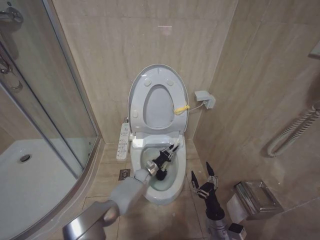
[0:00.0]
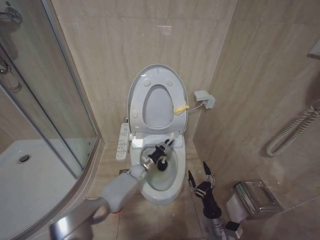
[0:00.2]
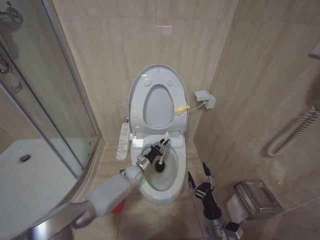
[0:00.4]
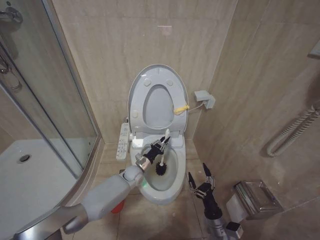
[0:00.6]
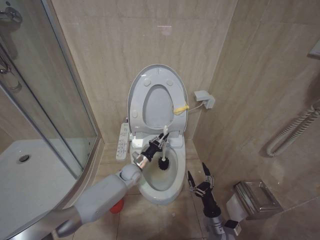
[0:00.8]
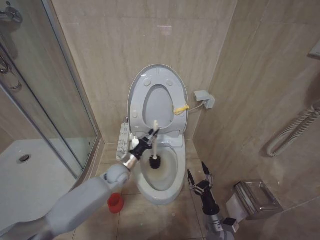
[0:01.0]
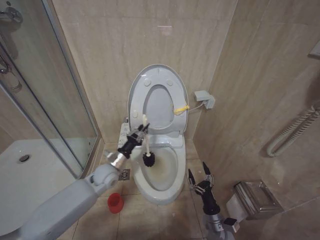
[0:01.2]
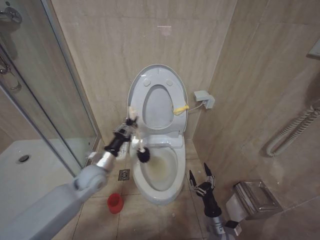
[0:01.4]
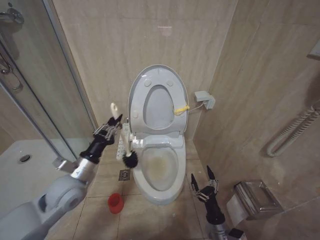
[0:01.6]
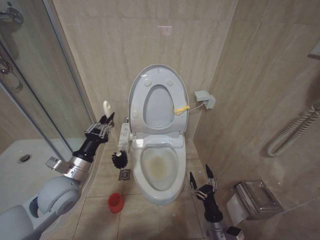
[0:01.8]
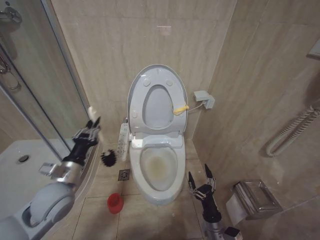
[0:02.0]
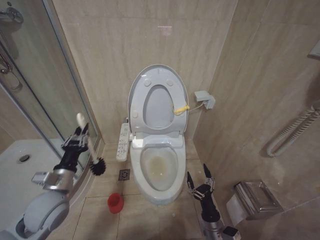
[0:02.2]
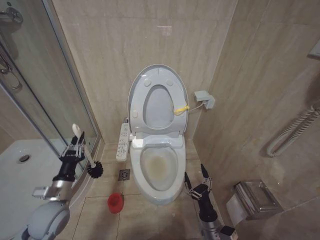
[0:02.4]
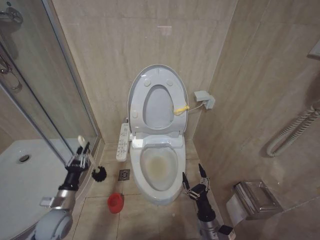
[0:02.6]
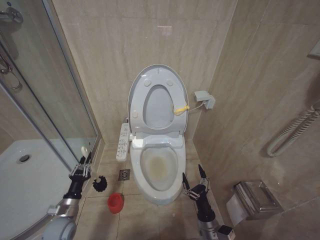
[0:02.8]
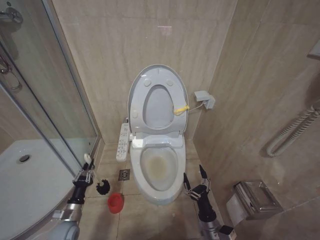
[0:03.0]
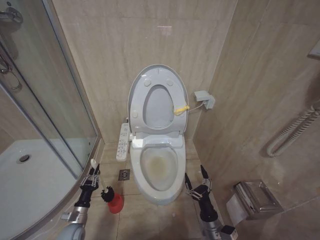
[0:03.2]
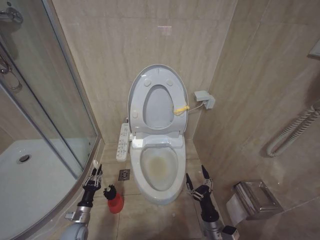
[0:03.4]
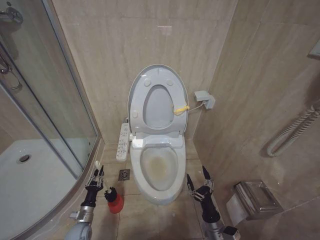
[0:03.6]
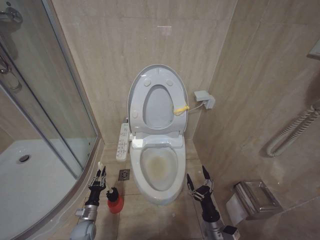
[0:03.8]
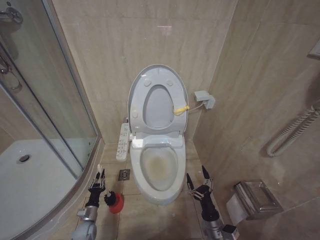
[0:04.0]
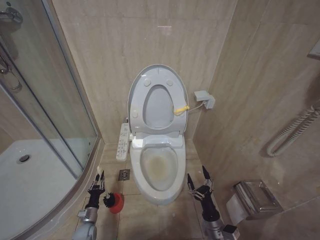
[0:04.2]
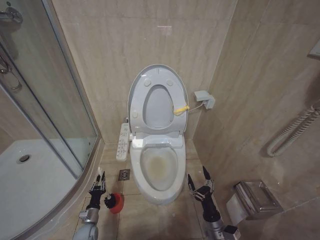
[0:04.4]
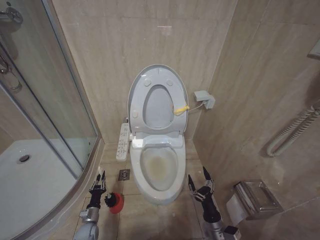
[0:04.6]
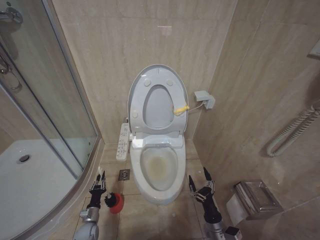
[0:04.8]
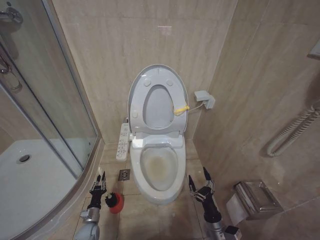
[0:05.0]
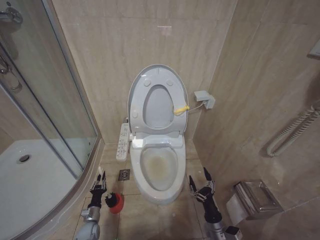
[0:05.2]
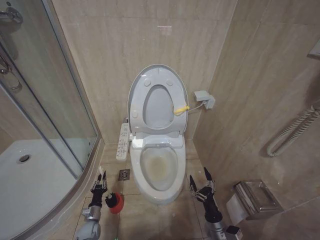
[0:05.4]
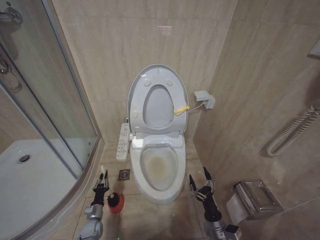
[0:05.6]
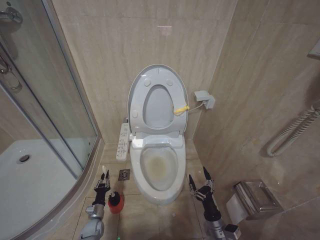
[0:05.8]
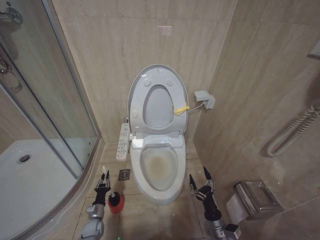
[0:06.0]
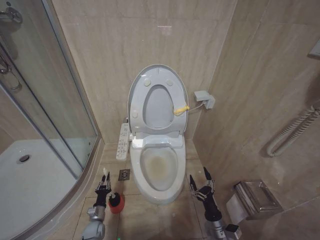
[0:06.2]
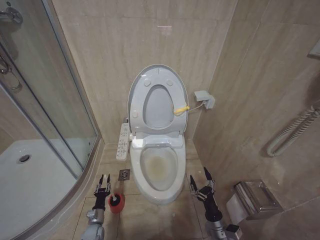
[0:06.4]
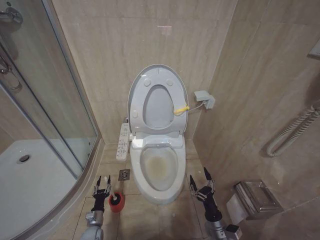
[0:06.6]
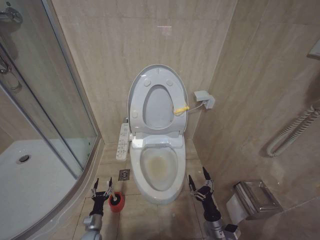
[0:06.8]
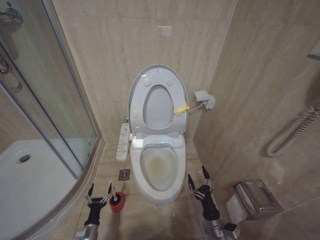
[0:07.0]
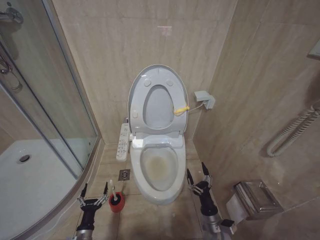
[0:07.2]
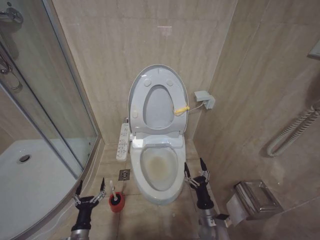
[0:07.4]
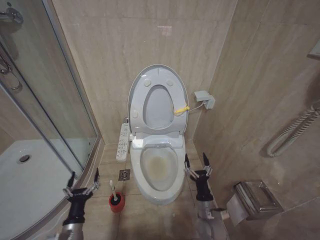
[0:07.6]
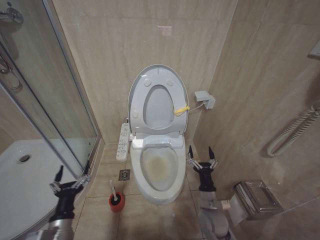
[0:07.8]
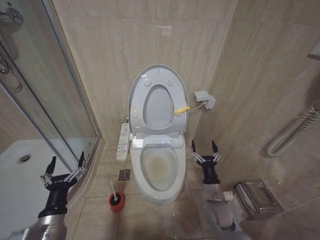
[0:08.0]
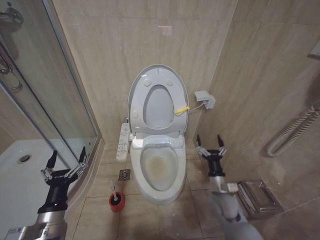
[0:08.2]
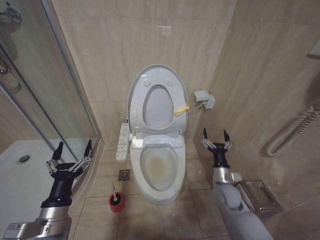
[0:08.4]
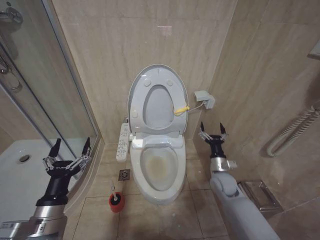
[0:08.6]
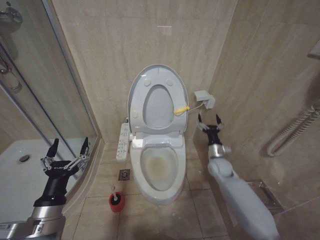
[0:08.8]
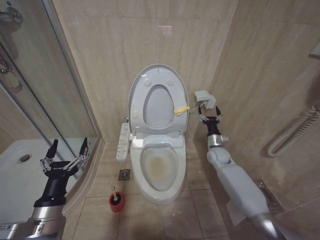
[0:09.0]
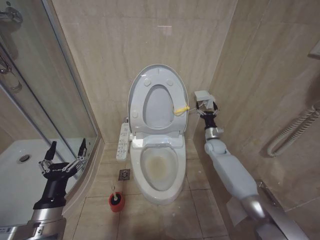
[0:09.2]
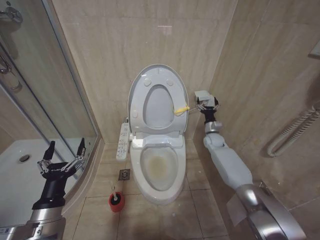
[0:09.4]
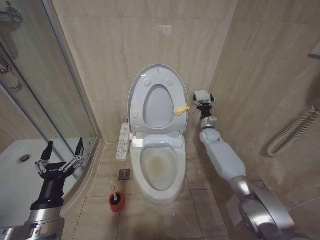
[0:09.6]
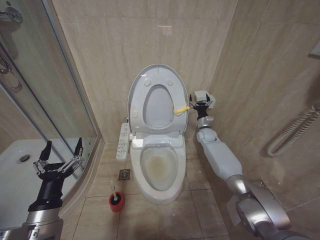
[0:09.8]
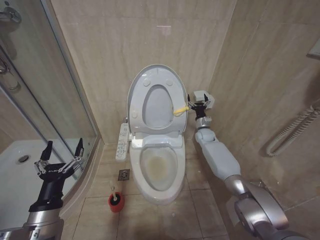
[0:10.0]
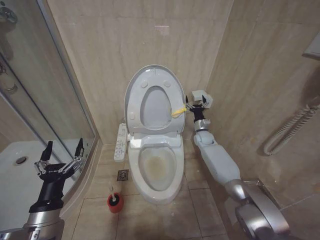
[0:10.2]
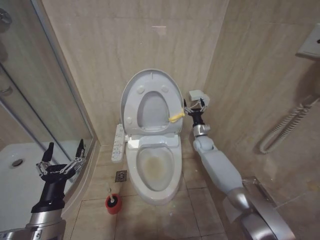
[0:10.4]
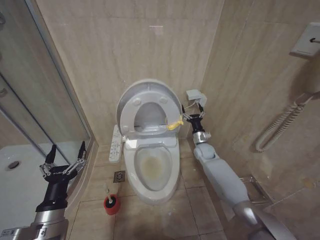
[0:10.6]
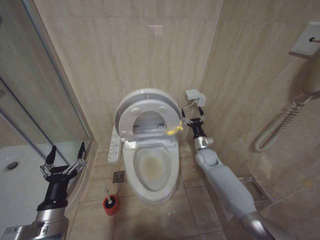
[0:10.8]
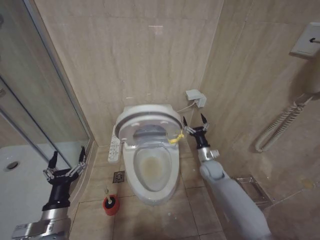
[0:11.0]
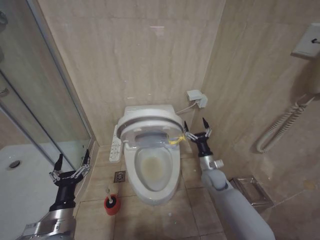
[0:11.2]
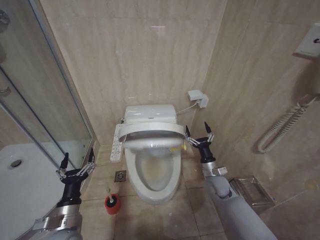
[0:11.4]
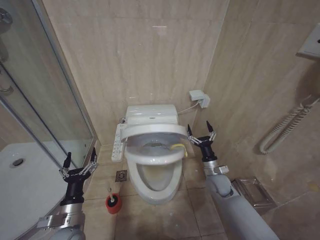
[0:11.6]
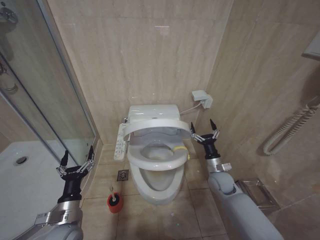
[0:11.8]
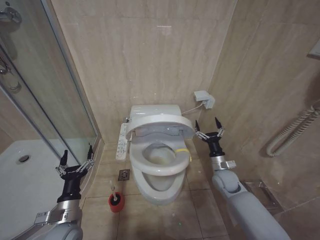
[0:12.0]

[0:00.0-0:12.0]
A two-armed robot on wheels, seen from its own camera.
Task of the whole recording: Open the toilet lid, clean the toilet bowl with a toilet brush, close the toilet lid, and flush.
0:00.0 to 0:01.6: The left gripper heads upward, to the left and backward, covering about 40 cm.
0:01.6 to 0:03.0: The left gripper is displaced downward and to the left by approximately 25 cm.
0:03.0 to 0:04.4: The left gripper heads downward, covering about 15 cm.
0:04.4 to 0:06.0: The grippers make only small movements.
0:06.0 to 0:07.6: The right gripper is displaced upward and to the left by about 10 cm; the left gripper shifts approximately 25 cm upward and backward, and opens its fingers.
0:07.6 to 0:09.0: The left gripper heads upward, covering approximately 20 cm, while the right gripper goes approximately 30 cm forward, upward and to the right.
0:09.0 to 0:10.4: The right gripper goes approximately 10 cm forward.
0:10.4 to 0:12.0: The left gripper is displaced downward and forward by roughly 10 cm. The right gripper travels backward by roughly 20 cm.

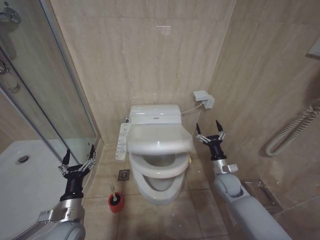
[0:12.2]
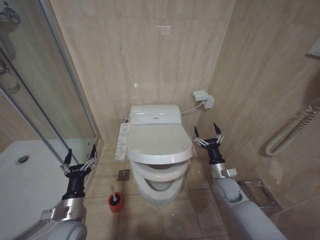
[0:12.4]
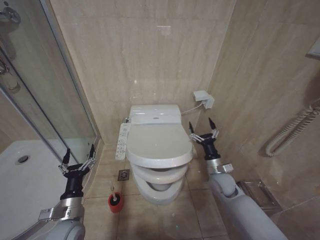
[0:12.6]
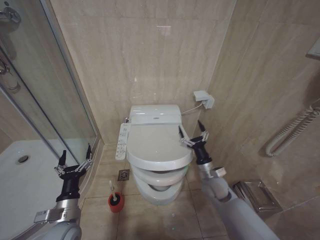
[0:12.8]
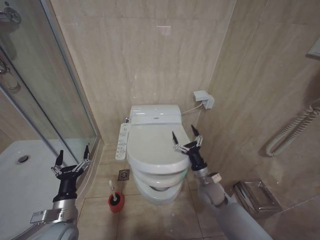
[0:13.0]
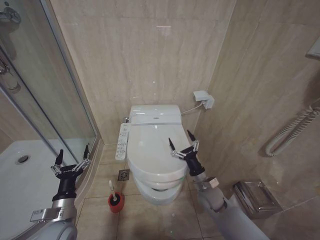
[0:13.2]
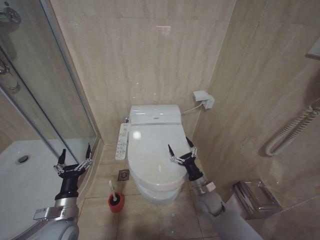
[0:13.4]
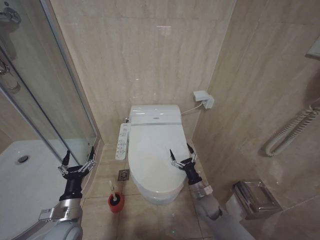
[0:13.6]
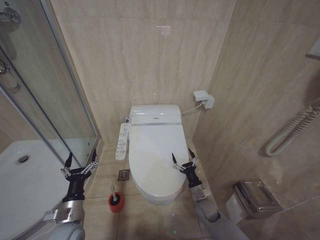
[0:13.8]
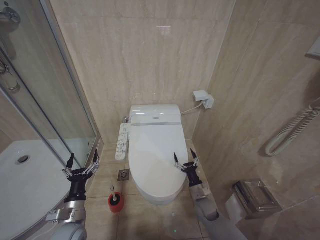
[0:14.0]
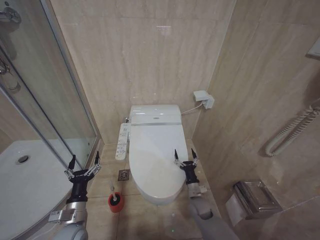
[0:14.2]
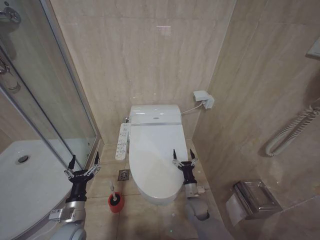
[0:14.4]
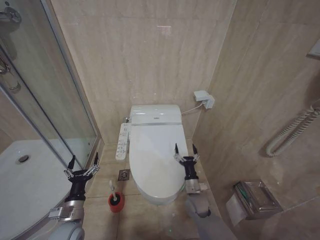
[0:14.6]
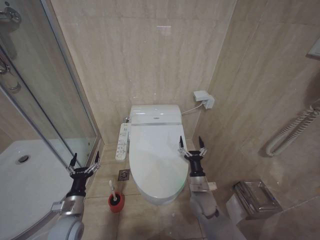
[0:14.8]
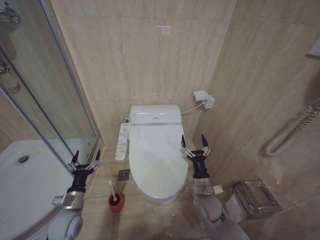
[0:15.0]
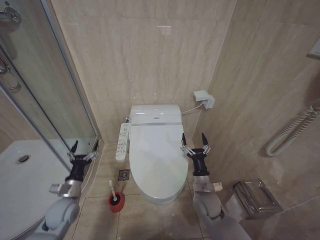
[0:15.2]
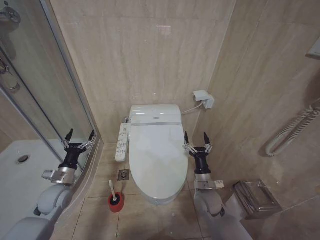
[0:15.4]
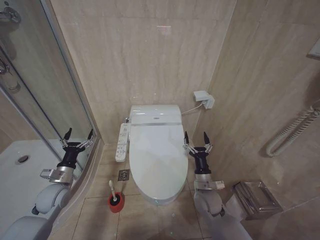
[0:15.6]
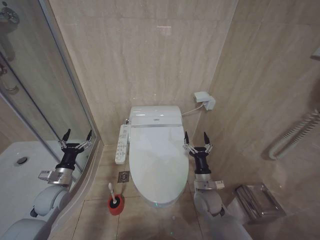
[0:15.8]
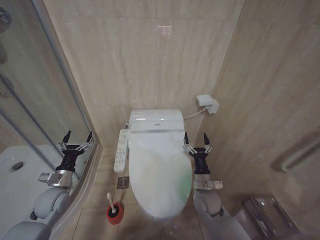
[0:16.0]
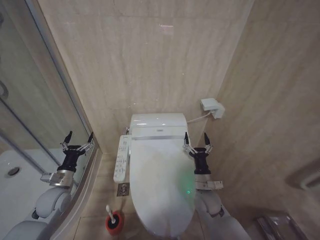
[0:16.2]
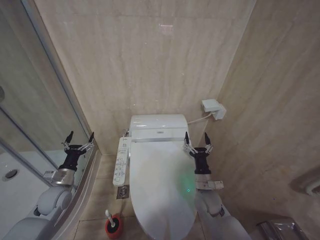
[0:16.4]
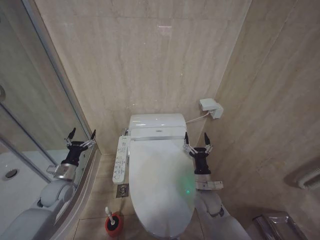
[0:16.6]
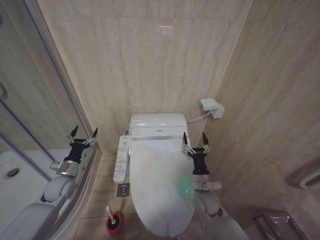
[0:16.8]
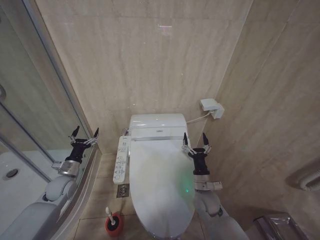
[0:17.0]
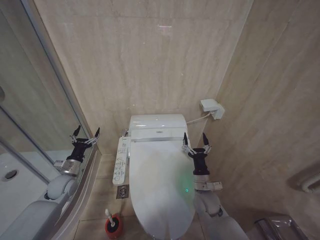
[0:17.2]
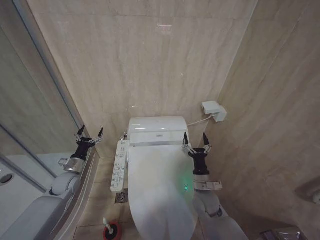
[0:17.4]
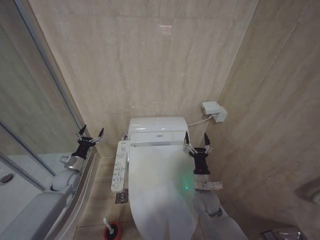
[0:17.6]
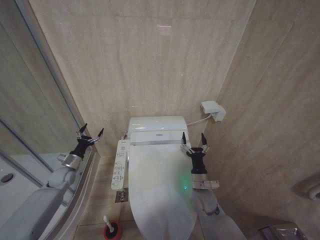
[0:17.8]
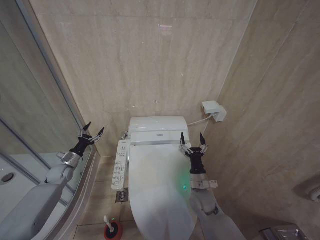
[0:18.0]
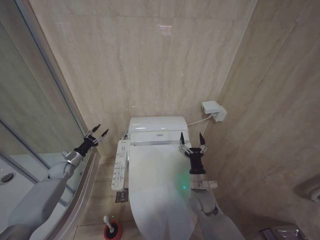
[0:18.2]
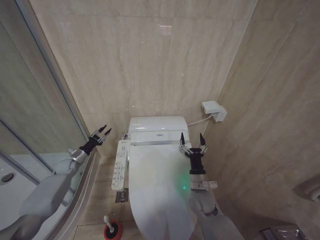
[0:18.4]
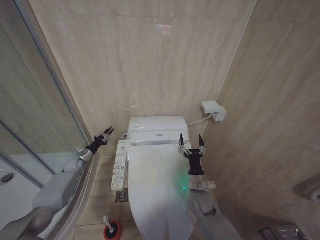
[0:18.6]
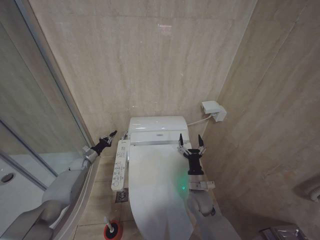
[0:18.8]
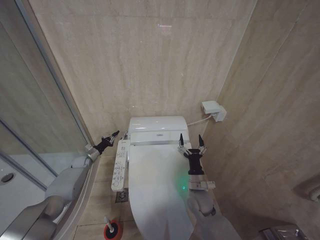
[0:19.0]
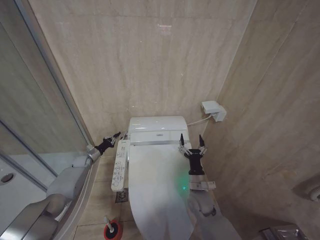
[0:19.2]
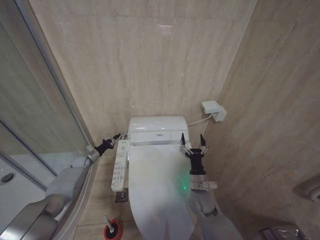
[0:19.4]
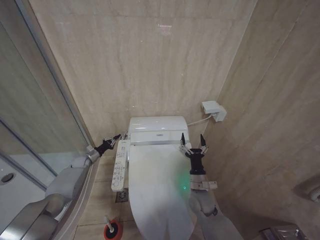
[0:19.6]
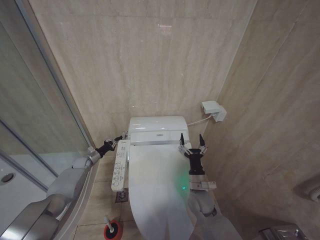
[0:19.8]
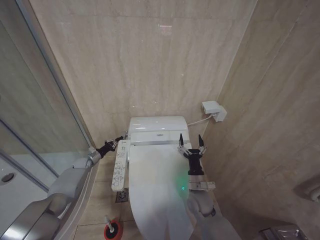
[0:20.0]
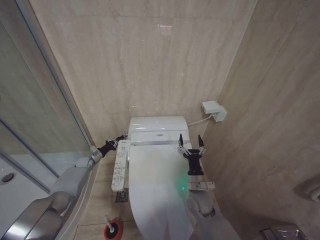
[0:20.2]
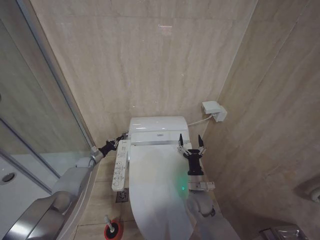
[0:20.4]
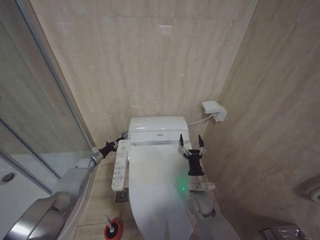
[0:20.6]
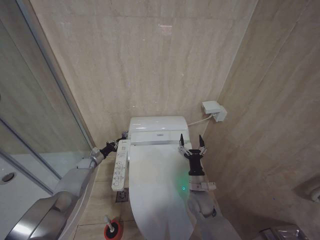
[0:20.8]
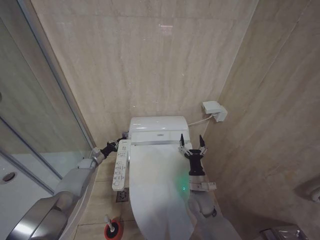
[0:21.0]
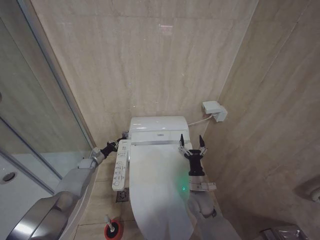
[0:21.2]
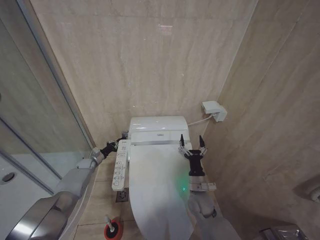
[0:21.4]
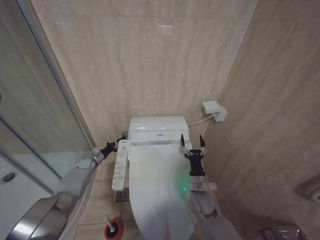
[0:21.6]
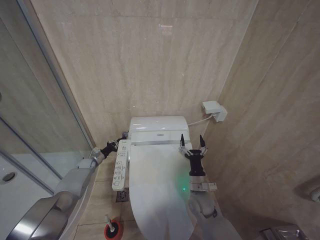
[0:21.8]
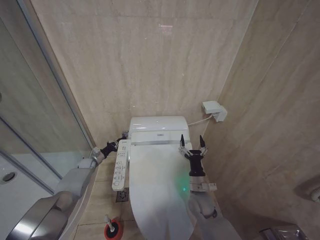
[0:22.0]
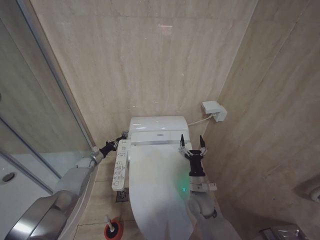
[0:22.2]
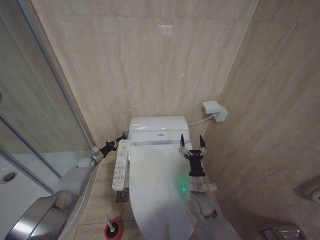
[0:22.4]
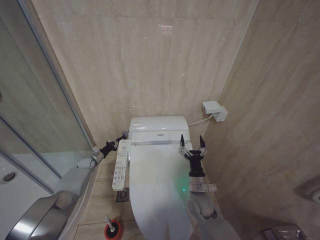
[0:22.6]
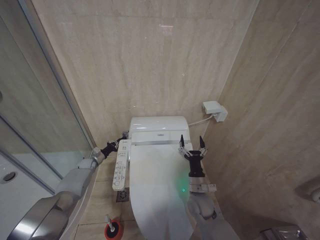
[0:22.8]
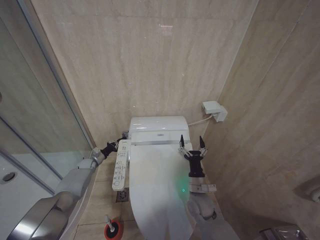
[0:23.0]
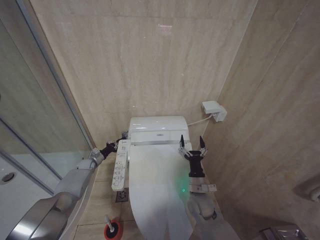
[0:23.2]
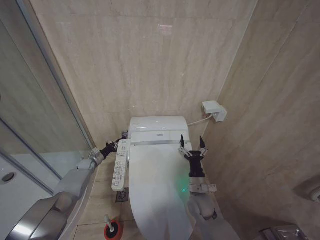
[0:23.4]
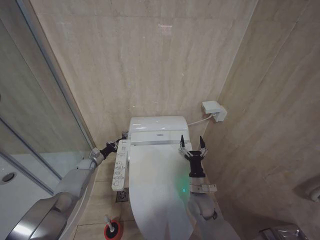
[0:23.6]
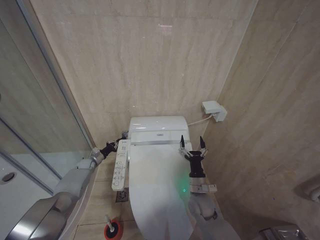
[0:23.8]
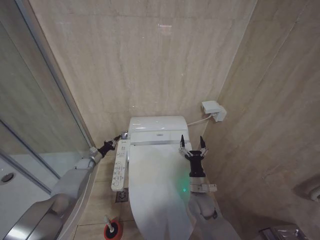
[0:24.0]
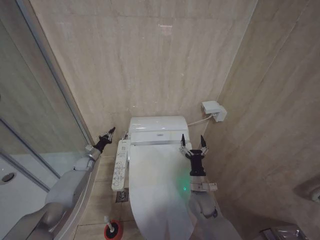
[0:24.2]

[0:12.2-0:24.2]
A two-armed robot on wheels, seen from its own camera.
Task of the whole recording: Open the toilet lid, clean the toilet bowl with a toilet brush, close the toilet lid, and flush.
0:12.2 to 0:13.8: The right gripper shifts roughly 15 cm downward and to the left.
0:13.8 to 0:15.2: The left gripper goes some 5 cm forward. The right gripper travels upward by roughly 10 cm.
0:15.2 to 0:16.6: The left gripper goes roughly 10 cm forward and upward.
0:16.6 to 0:18.2: The left gripper goes about 15 cm forward and to the left.
0:18.2 to 0:19.8: The left gripper is displaced forward and downward by some 10 cm, and closes up.
0:19.8 to 0:21.2: There are only small adjustments of the grippers.
0:21.2 to 0:22.6: Both grippers stay put.
0:22.6 to 0:24.2: The grippers move only a little.
